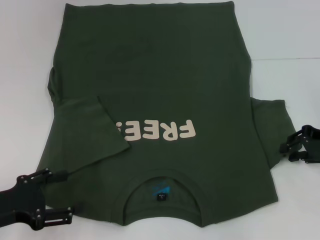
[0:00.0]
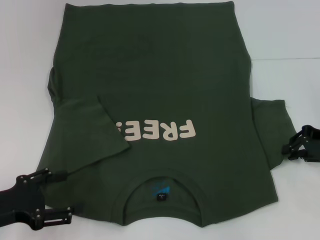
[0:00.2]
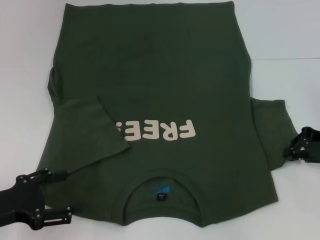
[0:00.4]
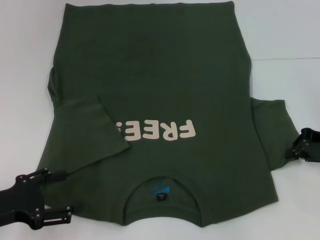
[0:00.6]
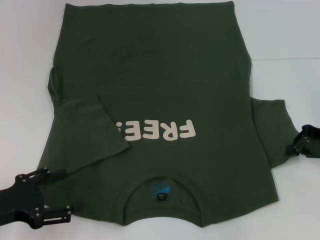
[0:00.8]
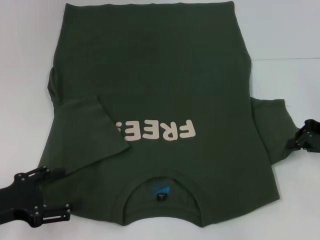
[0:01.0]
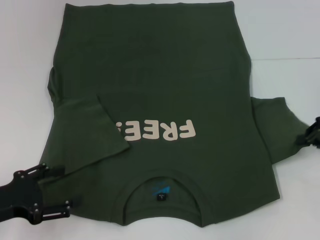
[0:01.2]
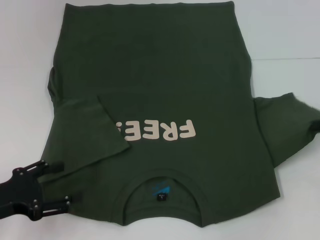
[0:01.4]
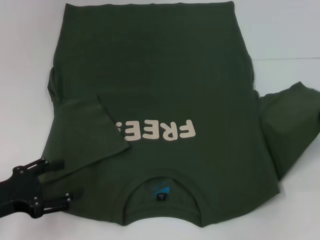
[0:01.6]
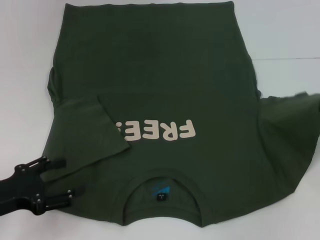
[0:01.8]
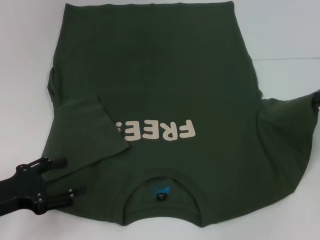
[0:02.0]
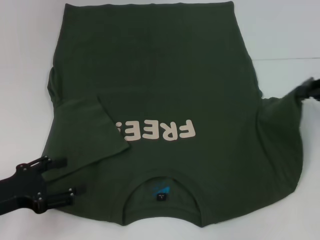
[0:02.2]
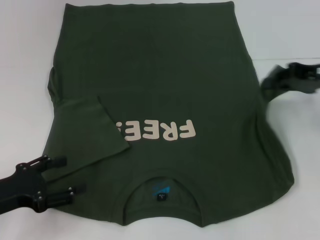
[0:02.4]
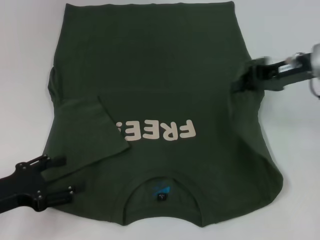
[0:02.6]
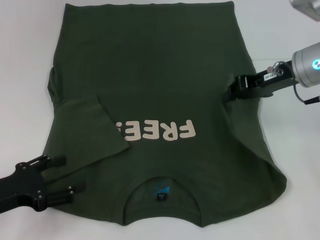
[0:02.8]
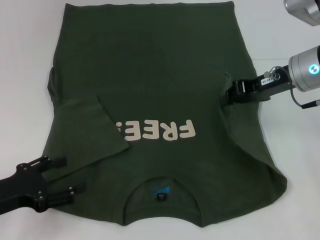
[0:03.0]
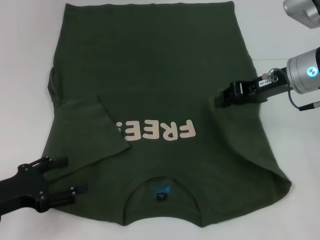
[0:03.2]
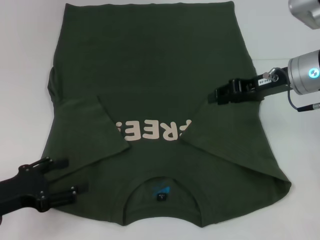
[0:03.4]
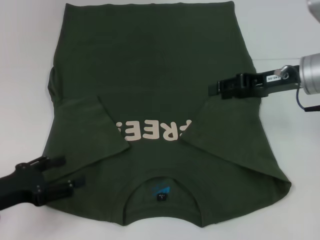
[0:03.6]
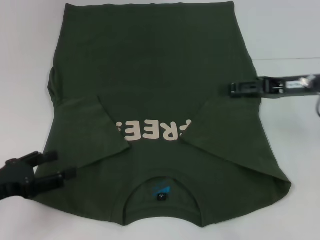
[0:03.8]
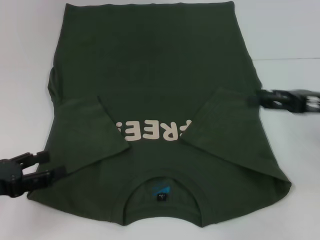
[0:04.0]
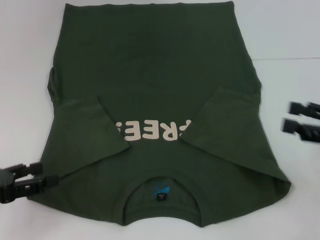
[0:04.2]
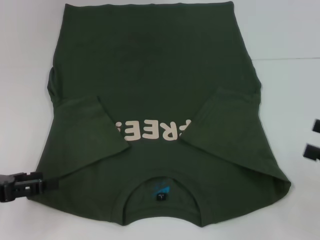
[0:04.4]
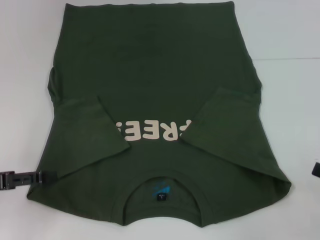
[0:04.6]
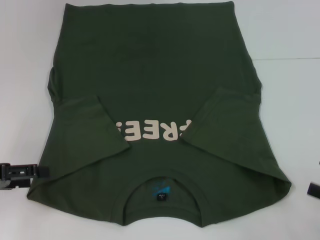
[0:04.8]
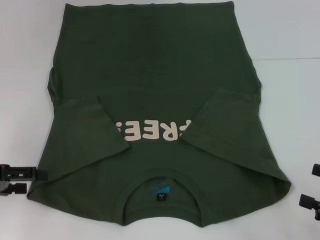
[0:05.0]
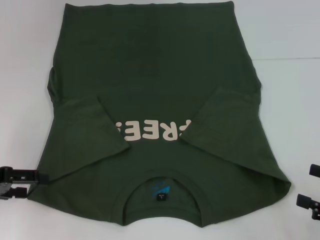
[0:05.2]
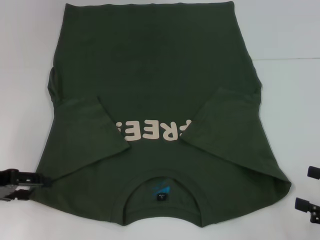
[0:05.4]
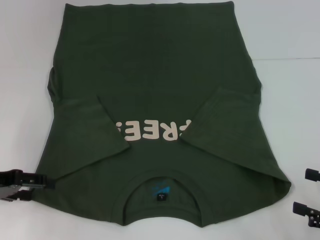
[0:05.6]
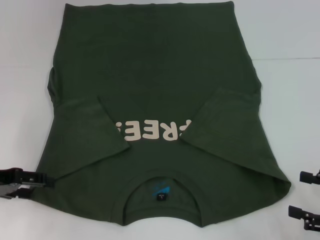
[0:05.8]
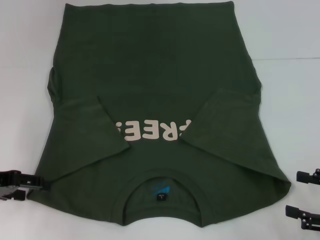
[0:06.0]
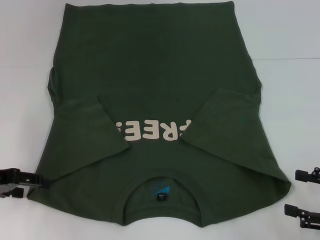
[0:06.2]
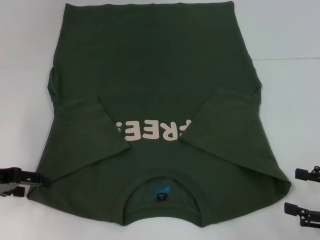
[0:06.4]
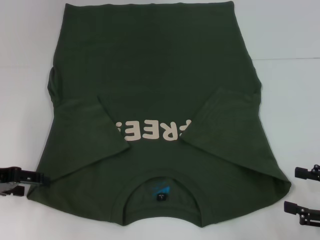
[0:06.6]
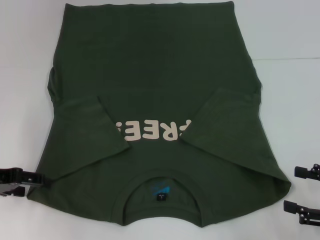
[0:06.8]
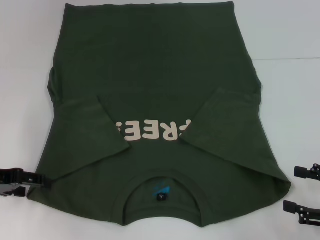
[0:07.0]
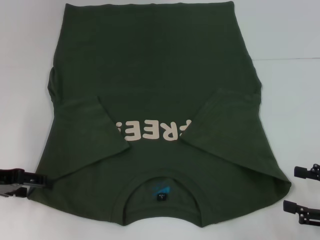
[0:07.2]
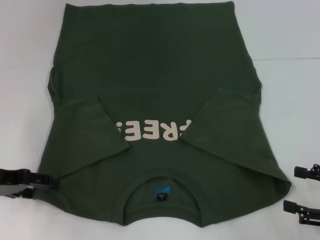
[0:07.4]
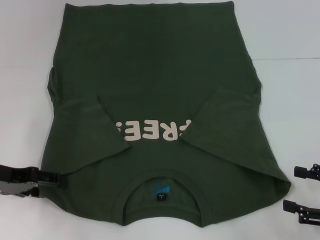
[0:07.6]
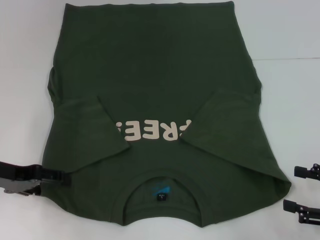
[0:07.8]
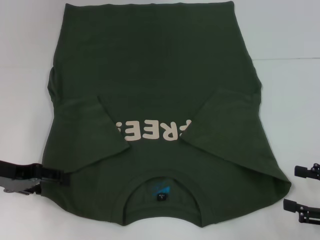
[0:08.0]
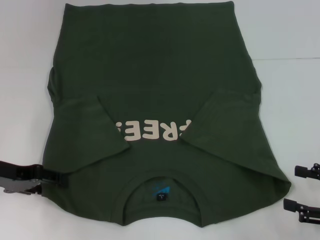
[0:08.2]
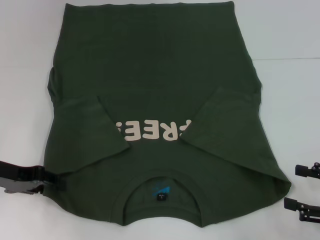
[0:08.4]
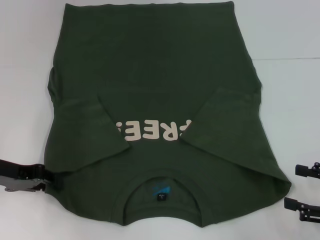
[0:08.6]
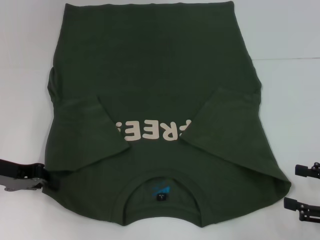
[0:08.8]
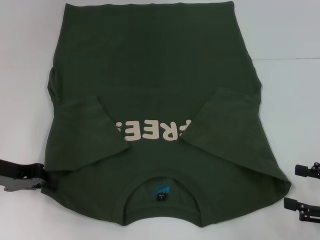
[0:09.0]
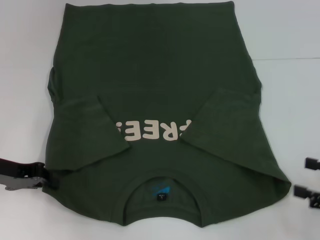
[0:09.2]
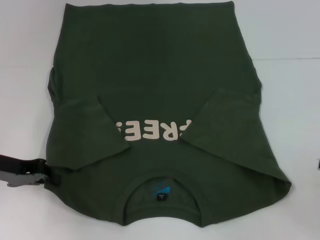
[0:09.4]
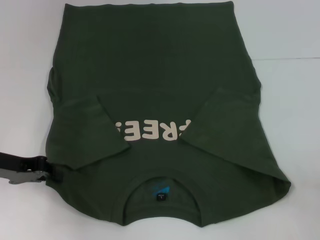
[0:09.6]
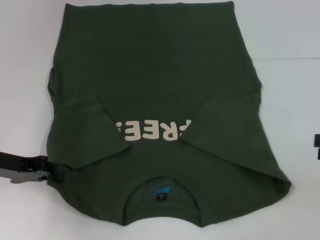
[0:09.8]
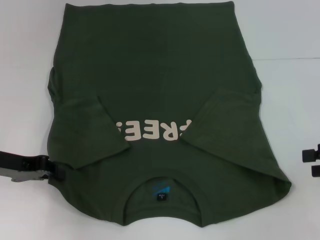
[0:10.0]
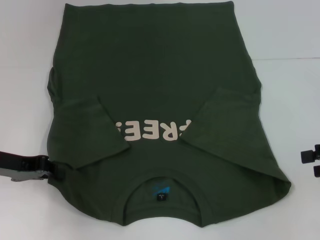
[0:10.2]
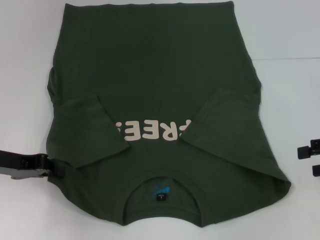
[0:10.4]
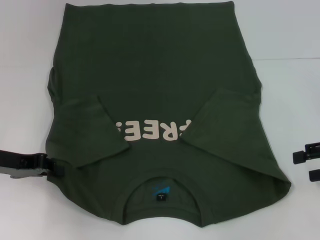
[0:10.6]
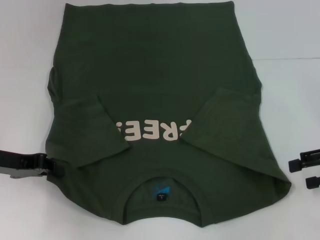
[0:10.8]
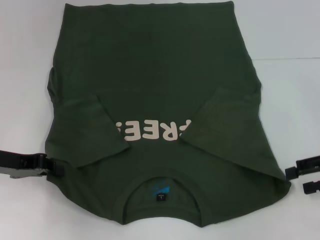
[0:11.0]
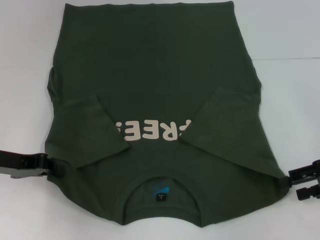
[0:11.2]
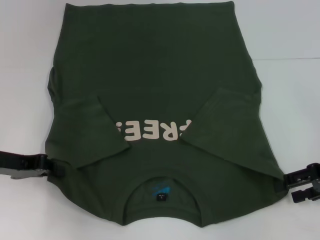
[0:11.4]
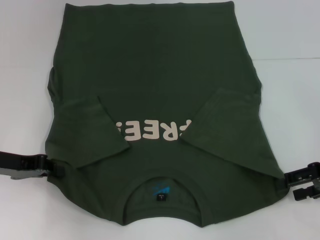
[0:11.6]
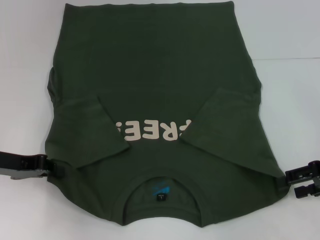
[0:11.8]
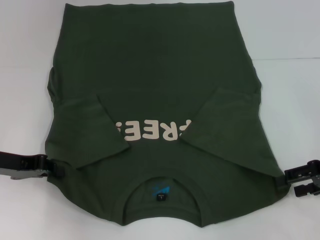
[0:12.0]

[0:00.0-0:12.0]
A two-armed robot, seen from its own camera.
Step, 0:00.0 to 0:03.2: Fold the bottom right sleeve with your right hand.
Step, 0:03.4 to 0:09.2: Grab the bottom left corner with your left hand.
0:00.0 to 0:01.6: The right gripper travels to the right by approximately 5 cm, and closes.
0:01.6 to 0:03.0: The right gripper shifts some 20 cm to the left and forward.
0:03.0 to 0:04.4: The right gripper moves backward and to the right, some 25 cm, and opens its fingers, while the left gripper moves roughly 5 cm.
0:04.4 to 0:06.0: The left gripper goes approximately 5 cm forward; the right gripper changes place by roughly 5 cm.
0:06.0 to 0:07.6: There are only small adjustments of the grippers.
0:07.6 to 0:09.0: The left gripper closes its fingers.
0:09.0 to 0:10.4: The right gripper goes some 10 cm forward and upward.
0:10.4 to 0:12.0: The grippers stay close to where they were, moving slightly.

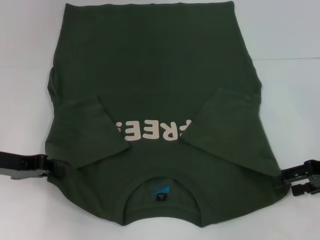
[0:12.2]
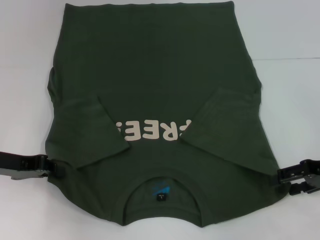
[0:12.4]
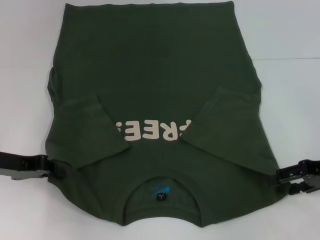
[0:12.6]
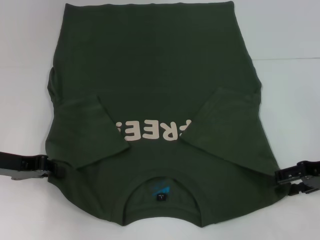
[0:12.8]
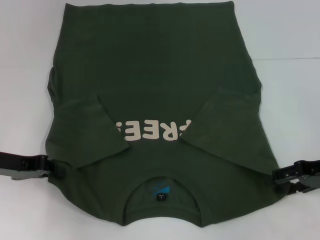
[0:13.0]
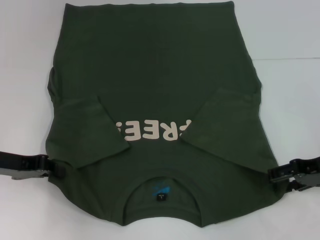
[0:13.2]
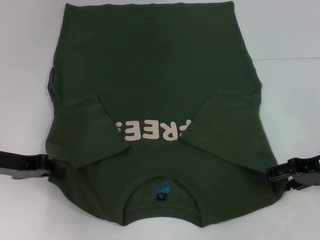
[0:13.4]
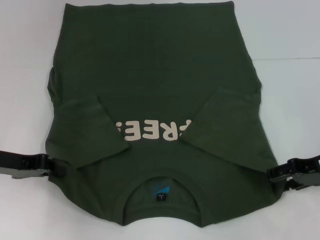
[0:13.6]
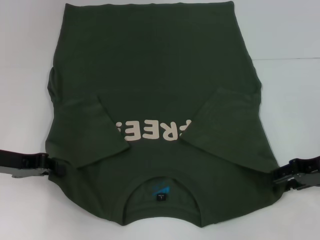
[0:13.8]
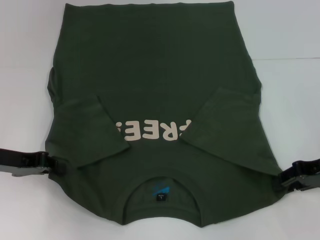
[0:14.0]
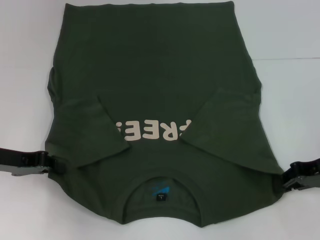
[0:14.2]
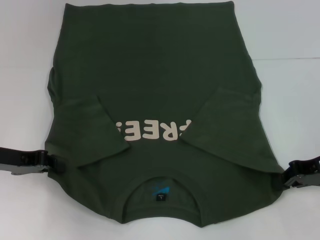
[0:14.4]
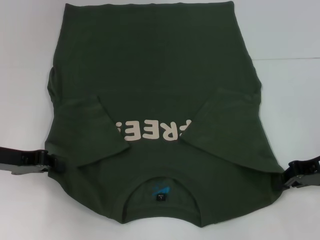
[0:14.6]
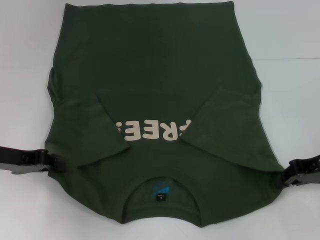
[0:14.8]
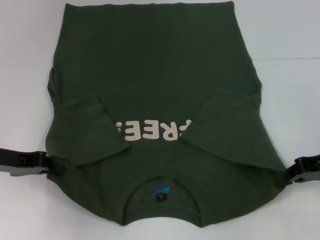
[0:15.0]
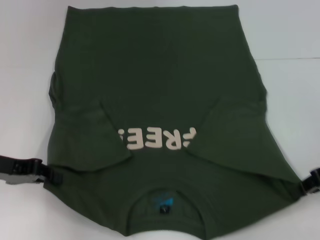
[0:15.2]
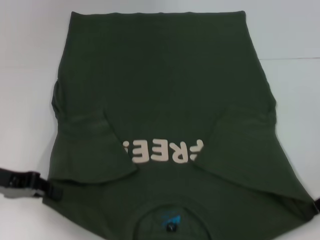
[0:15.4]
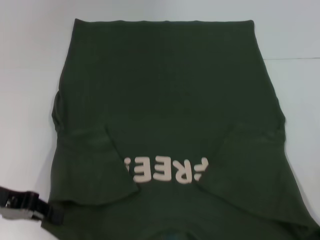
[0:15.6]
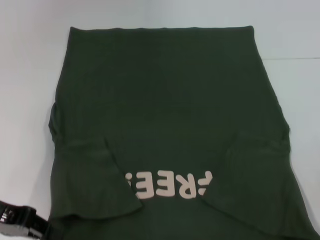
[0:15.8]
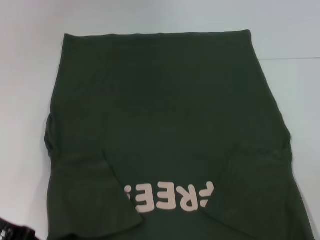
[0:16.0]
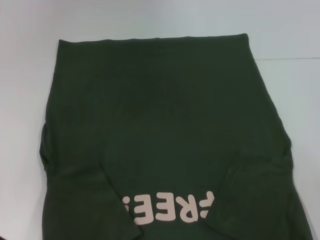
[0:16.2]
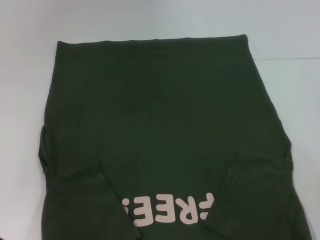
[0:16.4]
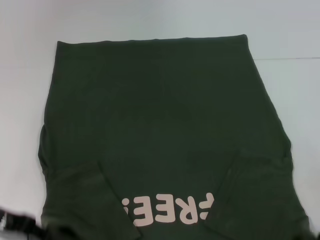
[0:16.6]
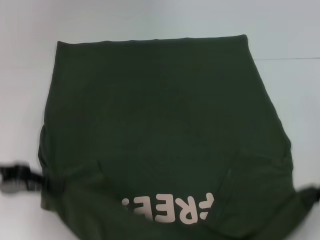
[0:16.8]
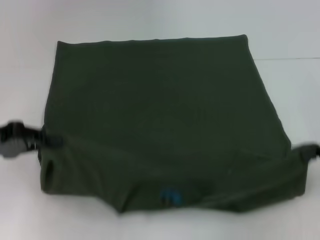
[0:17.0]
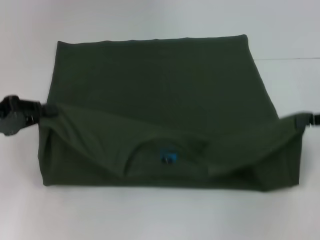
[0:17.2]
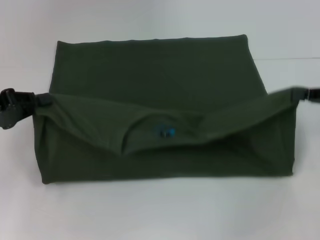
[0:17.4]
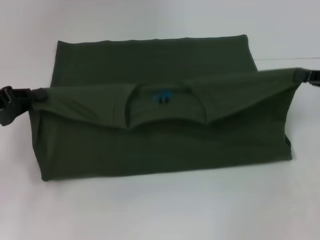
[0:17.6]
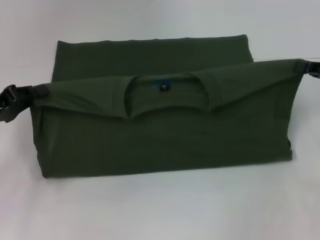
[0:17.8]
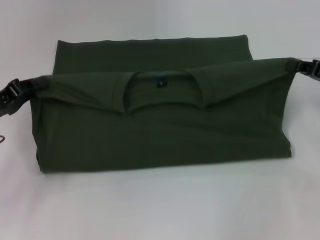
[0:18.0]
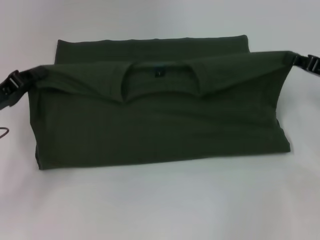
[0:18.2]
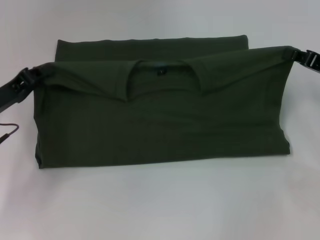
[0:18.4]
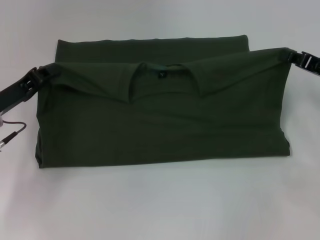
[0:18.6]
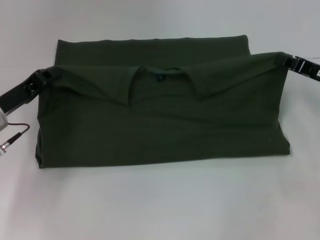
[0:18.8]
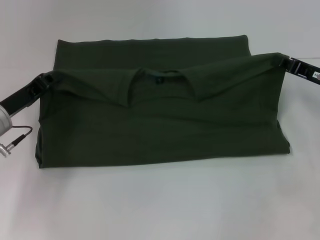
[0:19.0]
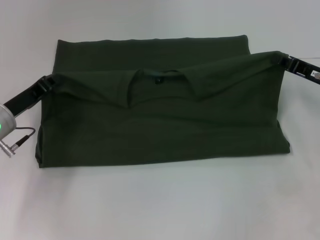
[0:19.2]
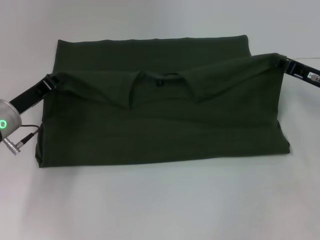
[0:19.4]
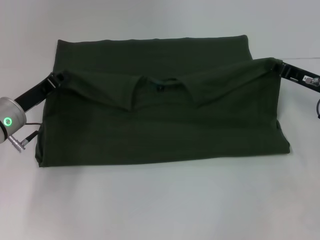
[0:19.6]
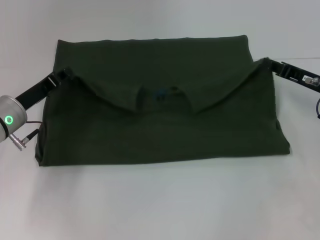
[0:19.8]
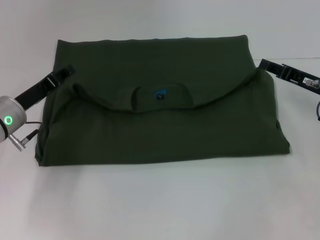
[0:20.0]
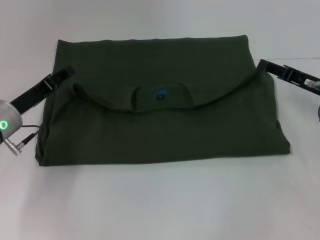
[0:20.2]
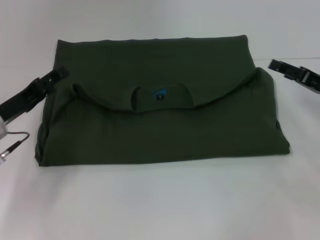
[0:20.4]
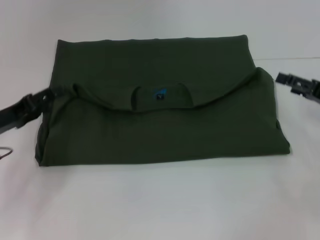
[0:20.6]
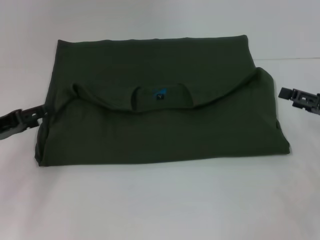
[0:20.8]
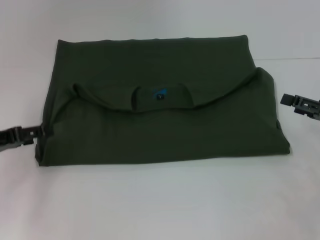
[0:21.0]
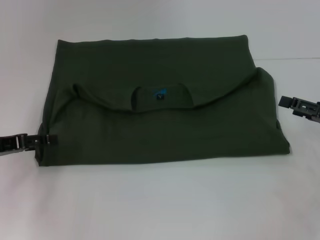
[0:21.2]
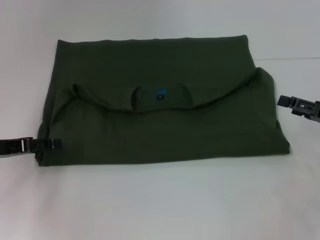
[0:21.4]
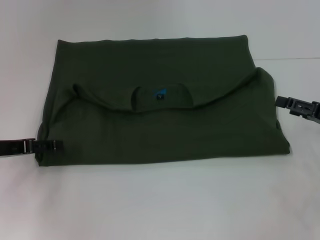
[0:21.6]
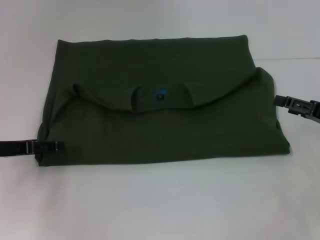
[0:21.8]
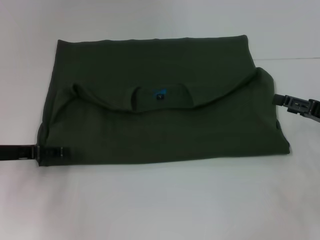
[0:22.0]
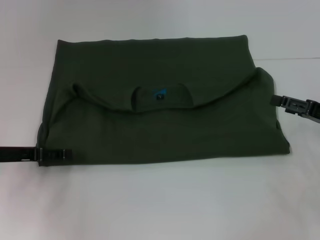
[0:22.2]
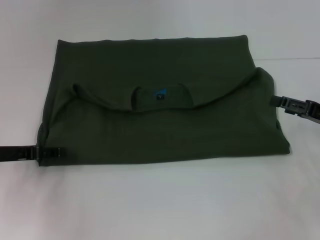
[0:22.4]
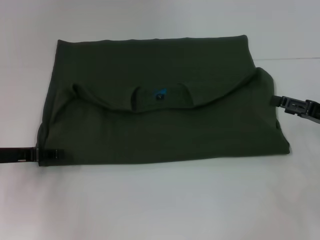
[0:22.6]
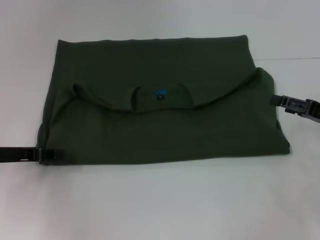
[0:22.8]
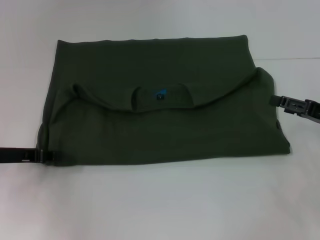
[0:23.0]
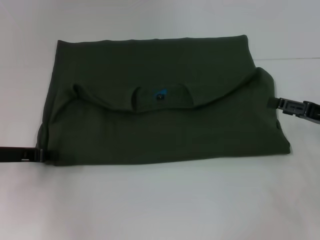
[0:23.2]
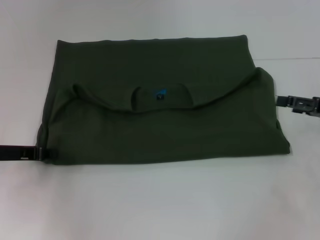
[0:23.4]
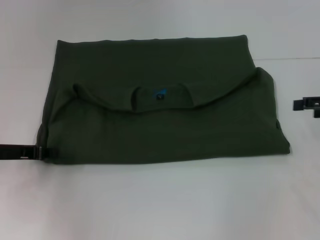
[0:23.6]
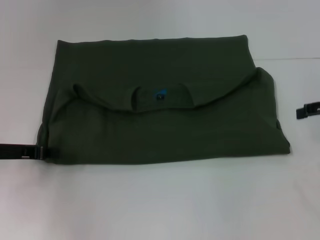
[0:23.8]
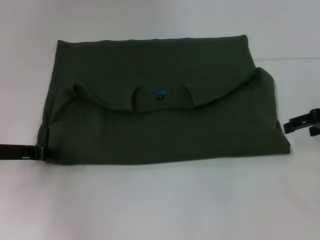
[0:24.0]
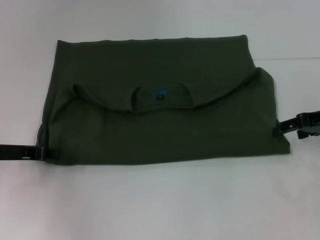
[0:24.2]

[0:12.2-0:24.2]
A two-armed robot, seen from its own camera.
Step, 0:12.2 to 0:14.2: Grab the bottom right corner with your right hand.
Step, 0:14.4 to 0:20.2: Fold the clothes with your left hand.
Step, 0:14.4 to 0:20.2: Fold the clothes with your right hand.
0:12.2 to 0:13.8: The grippers move only a little.
0:13.8 to 0:15.2: The right gripper closes up.
0:16.6 to 0:18.2: Both grippers travel together forward, about 10 cm.
0:18.2 to 0:19.8: The right gripper ends up about 5 cm from where it was. Meanwhile the left gripper goes some 5 cm to the right.
0:19.8 to 0:21.2: The right gripper is displaced backward and to the right by some 10 cm, and opens; the left gripper moves to the left, approximately 10 cm, and opens up.
0:21.2 to 0:22.6: There are only small adjustments of the grippers.
0:22.6 to 0:24.2: The left gripper closes its fingers. The right gripper is displaced upward and forward by some 5 cm.
